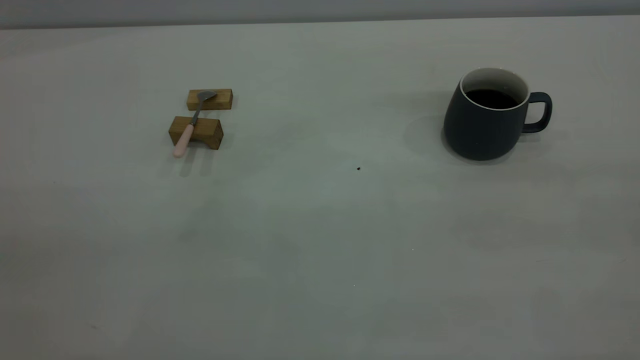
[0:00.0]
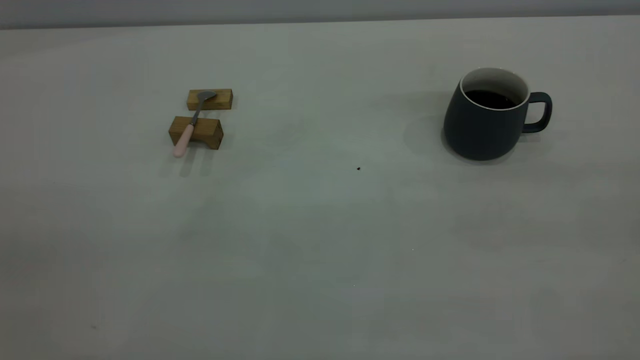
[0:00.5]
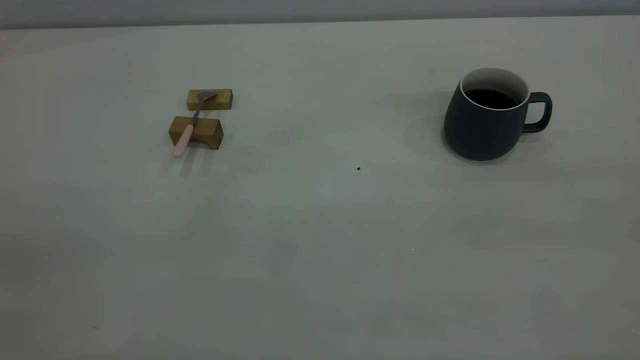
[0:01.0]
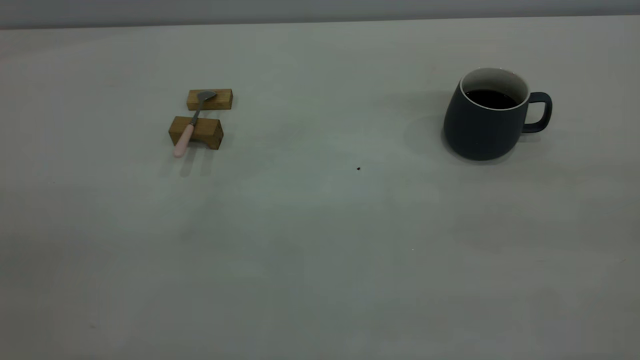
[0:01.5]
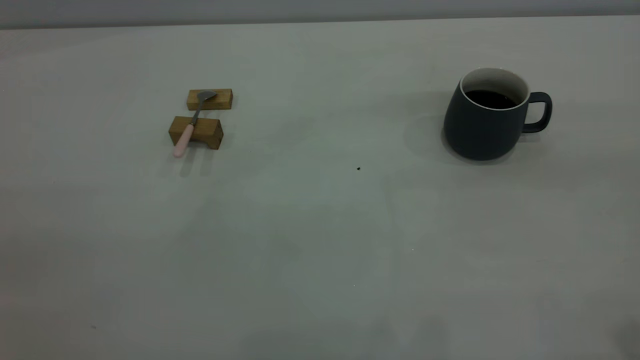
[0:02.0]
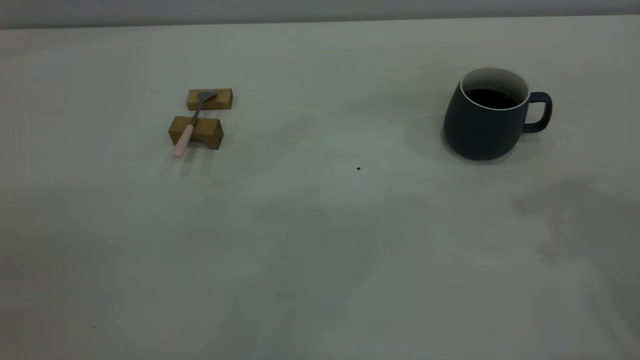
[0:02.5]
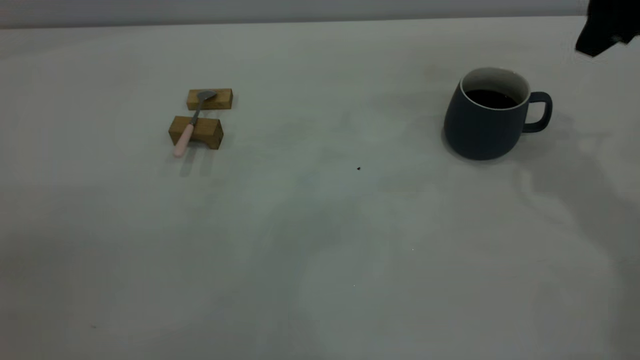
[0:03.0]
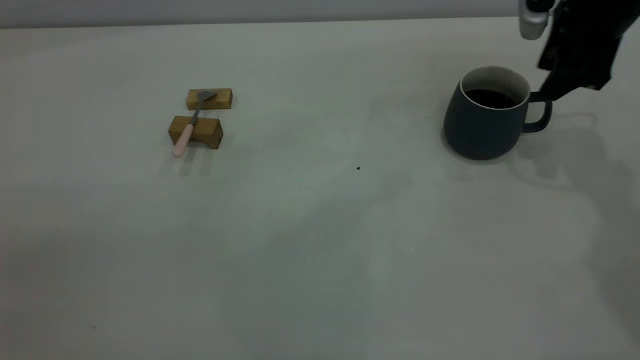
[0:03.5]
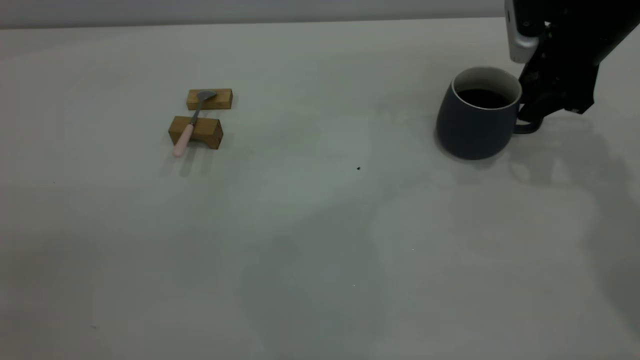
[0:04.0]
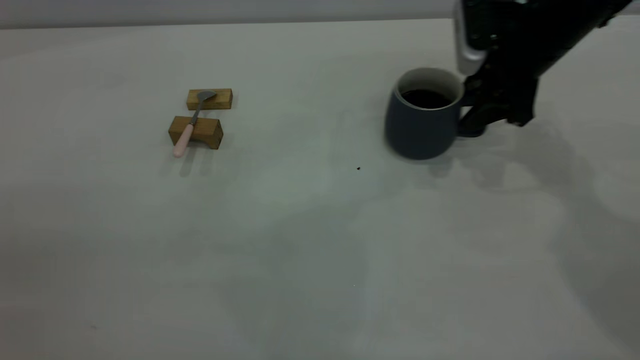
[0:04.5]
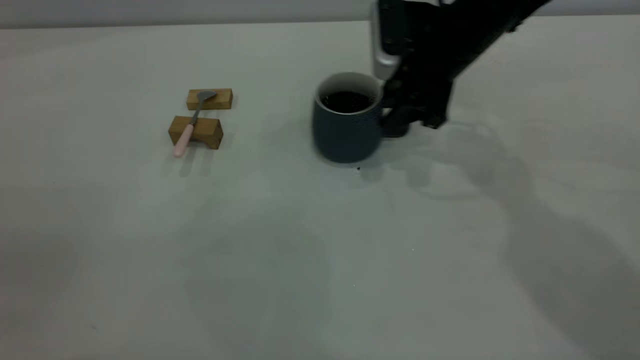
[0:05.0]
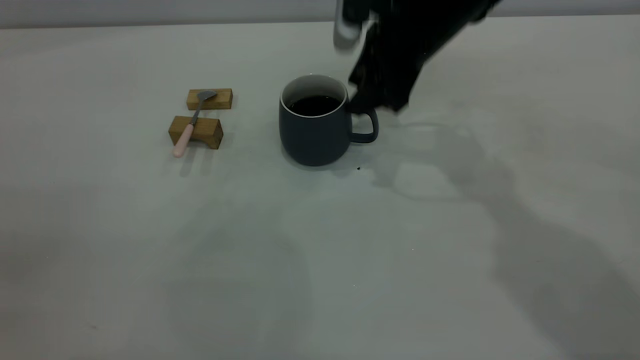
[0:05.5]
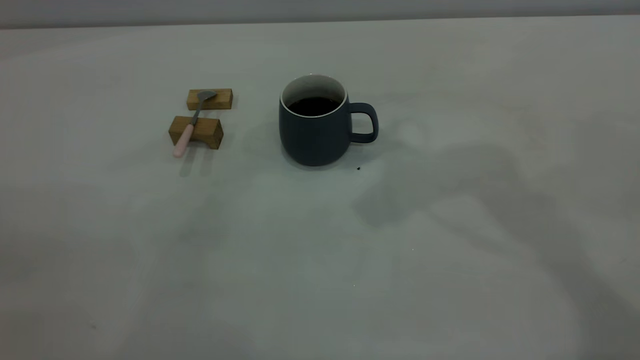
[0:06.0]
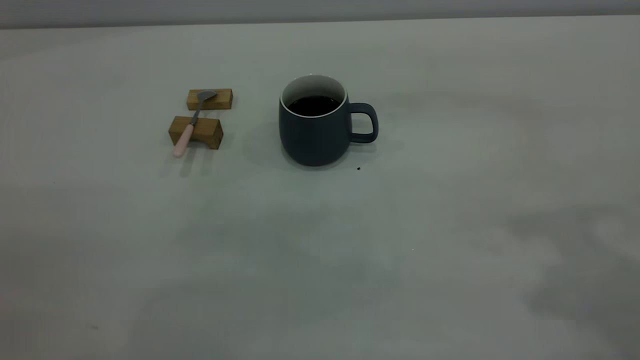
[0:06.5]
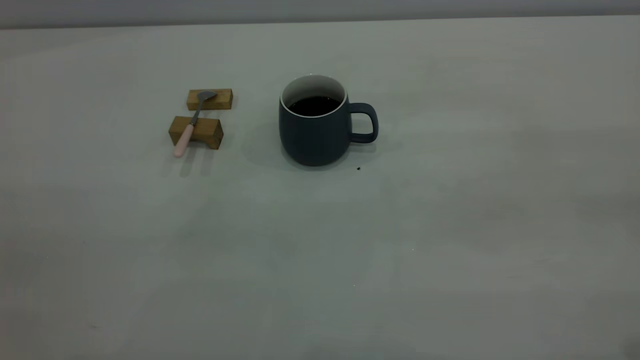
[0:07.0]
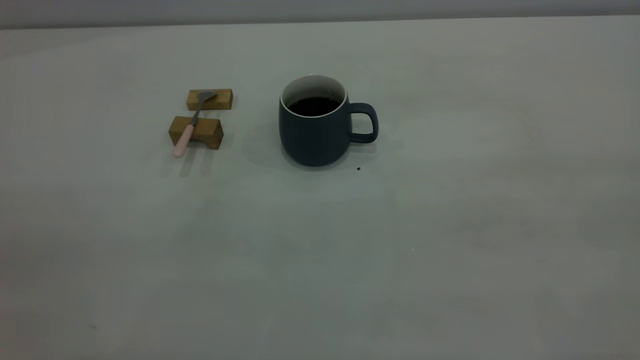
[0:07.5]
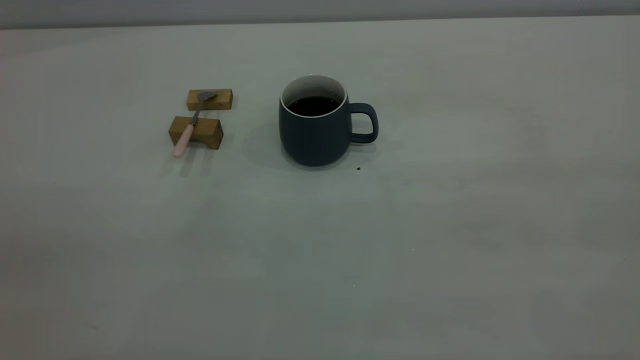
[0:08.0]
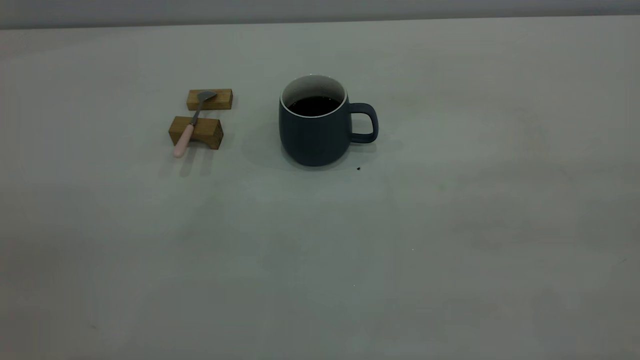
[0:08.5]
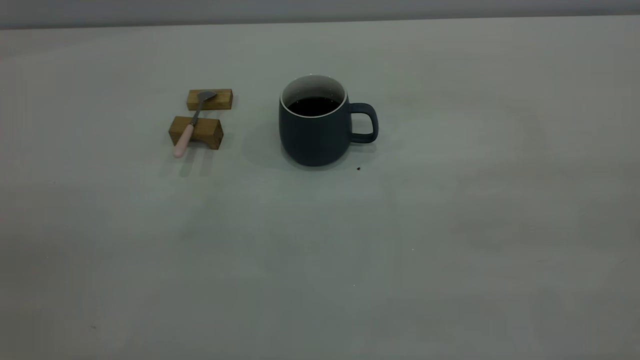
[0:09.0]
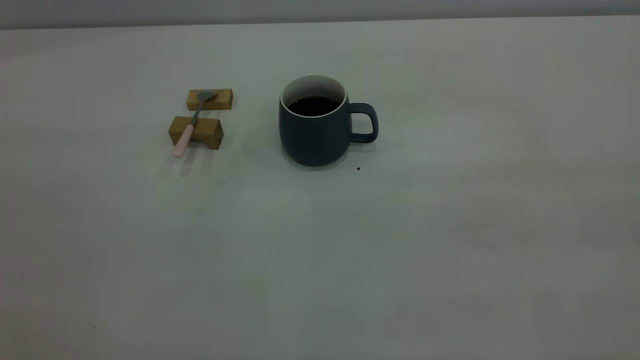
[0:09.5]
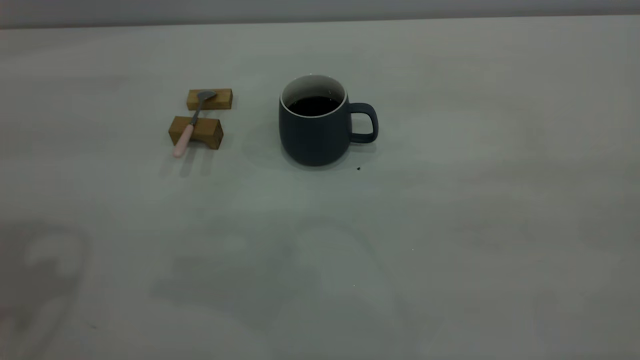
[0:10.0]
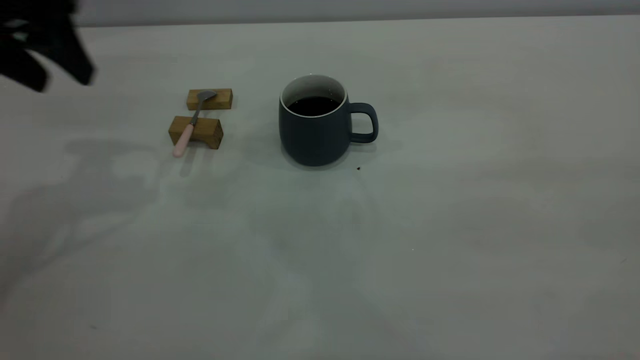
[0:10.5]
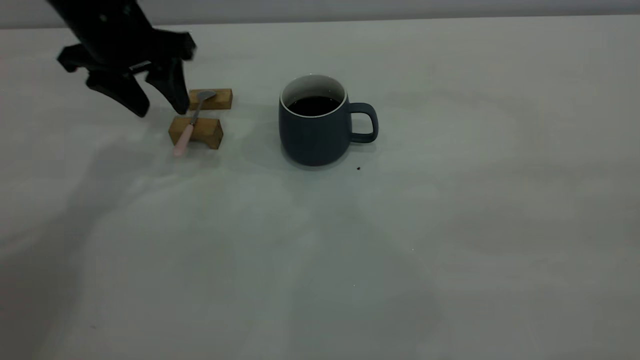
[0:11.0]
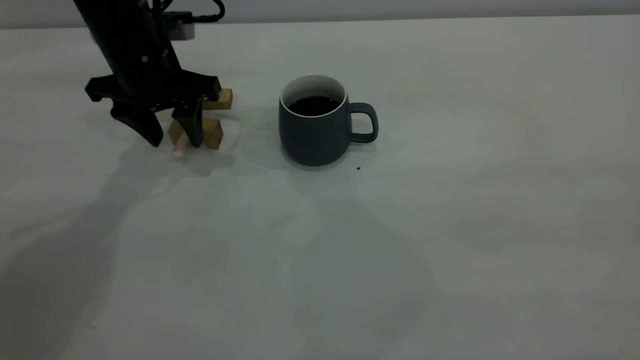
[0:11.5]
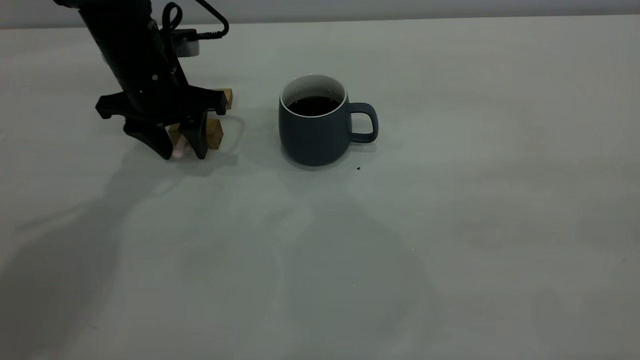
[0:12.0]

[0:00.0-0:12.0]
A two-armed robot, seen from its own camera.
Step, 0:00.0 to 0:05.5: Move the cup with coffee to the center of view.
0:02.0 to 0:04.0: The right gripper shifts about 40 cm forward and downward.
0:04.0 to 0:06.0: The right gripper is displaced upward and to the left by approximately 25 cm.
0:10.0 to 0:12.0: The left gripper shifts some 30 cm downward, forward and to the right.

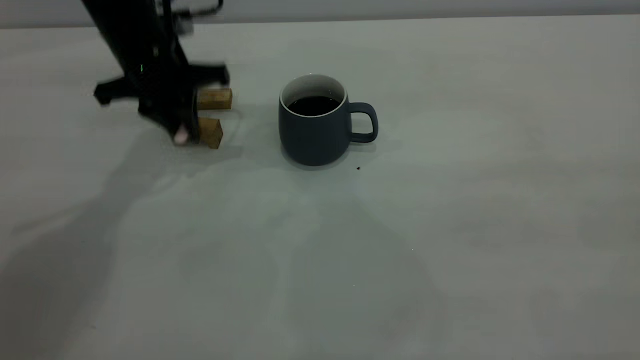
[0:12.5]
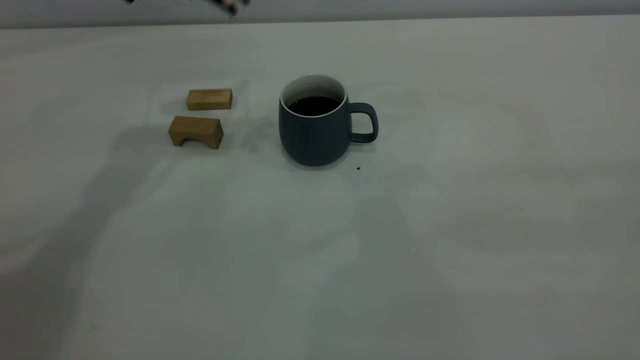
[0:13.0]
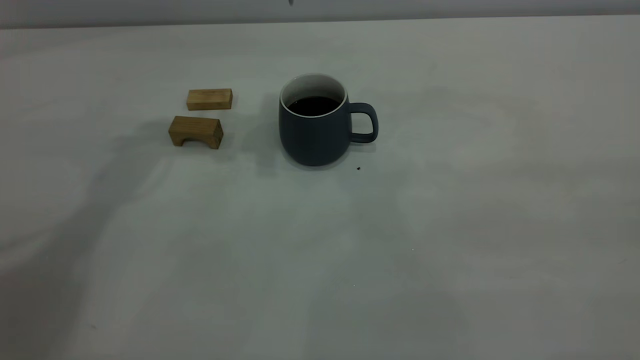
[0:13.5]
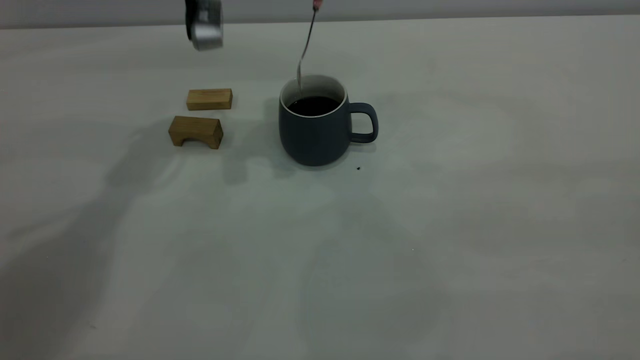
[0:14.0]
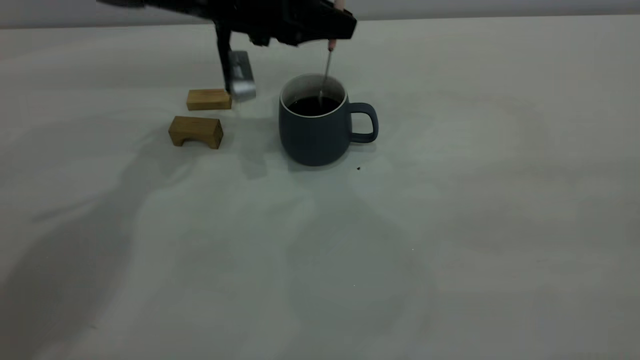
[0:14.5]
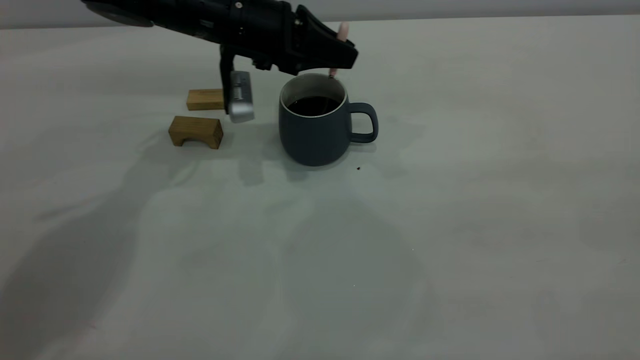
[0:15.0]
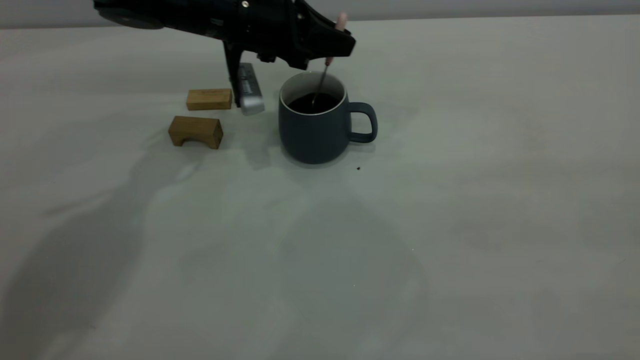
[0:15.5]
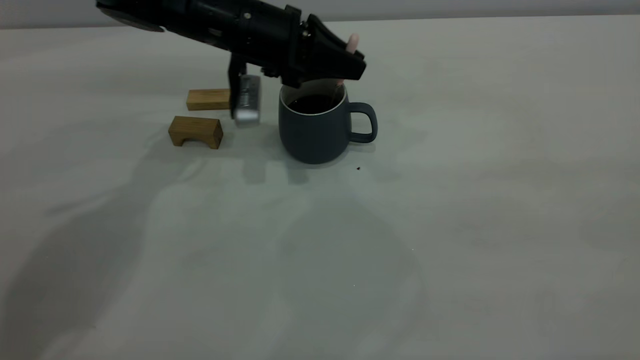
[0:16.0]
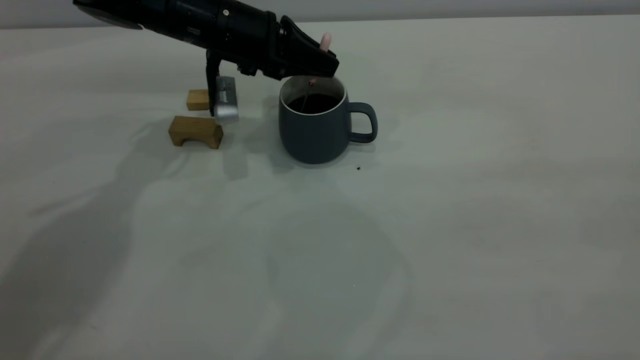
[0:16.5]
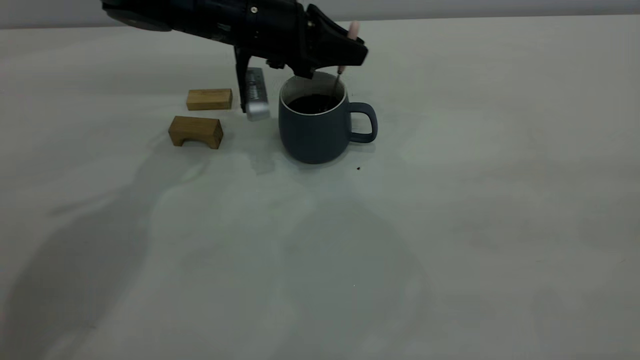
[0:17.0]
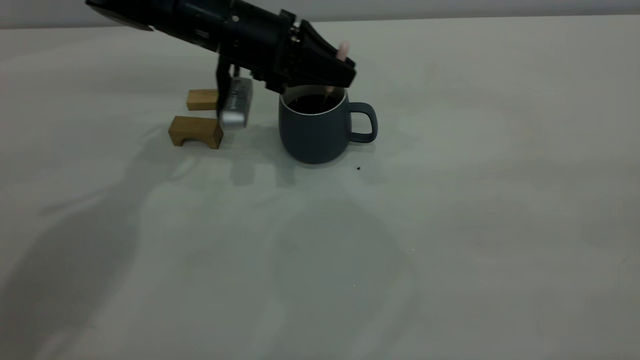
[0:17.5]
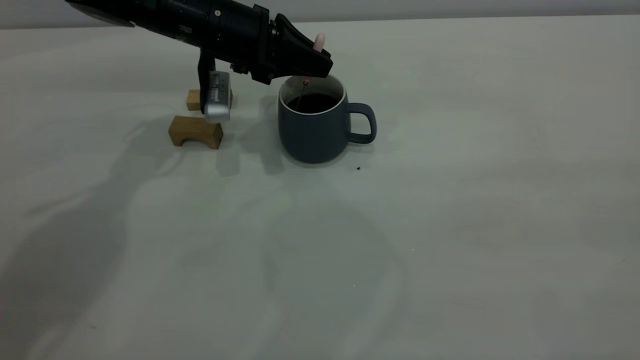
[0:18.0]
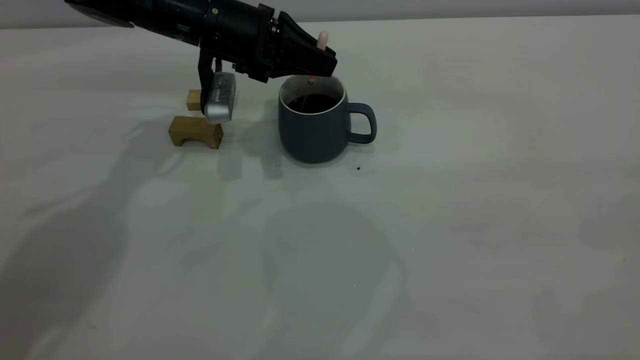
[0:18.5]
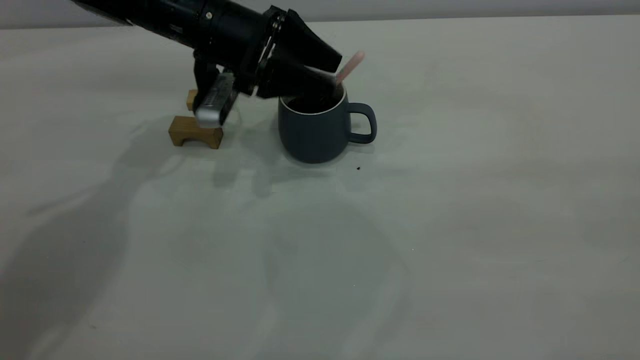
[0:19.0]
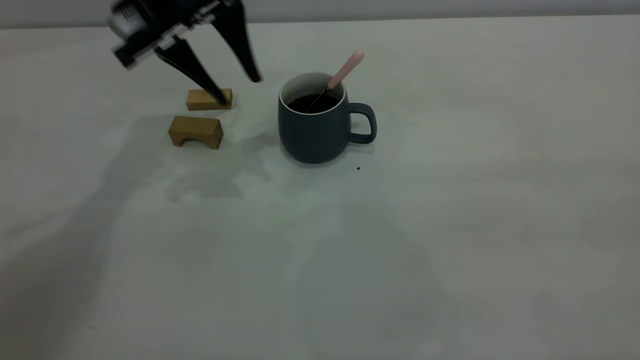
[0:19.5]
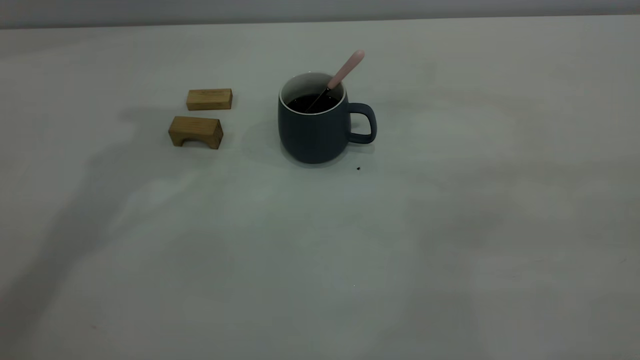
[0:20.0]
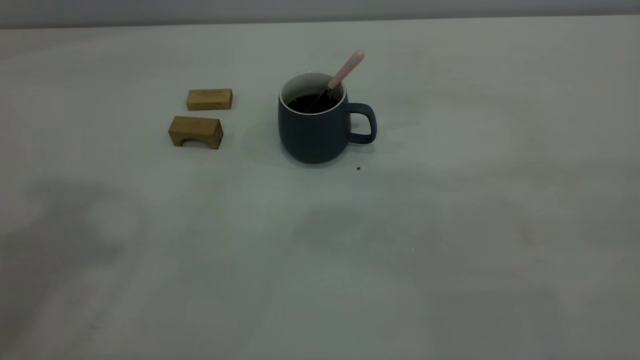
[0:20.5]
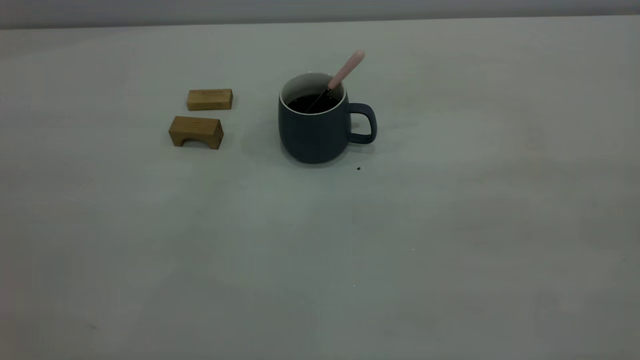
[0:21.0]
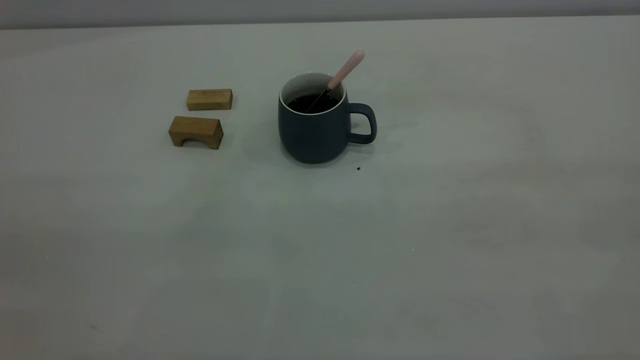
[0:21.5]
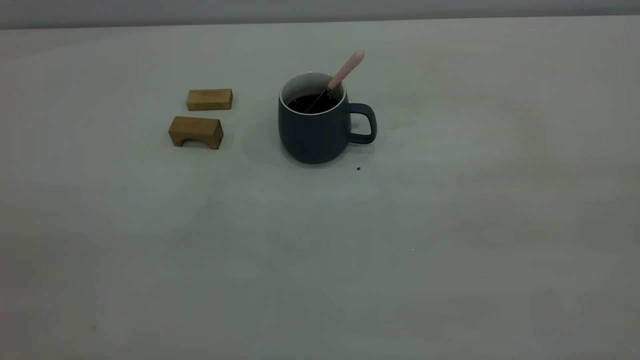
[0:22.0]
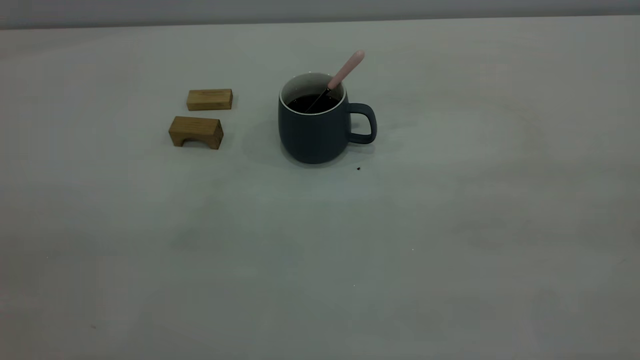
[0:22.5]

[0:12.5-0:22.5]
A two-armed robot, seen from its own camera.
Step, 0:13.0 to 0:19.0: Stir the coffee in the cup.
0:12.5 to 0:14.5: The left gripper is displaced to the right by roughly 10 cm, and reaches roughly 15 cm upward, then returns.
0:14.5 to 0:18.5: The grippers make only small movements.
0:18.5 to 0:20.5: The left gripper goes about 40 cm upward and backward, and opens and closes again.
